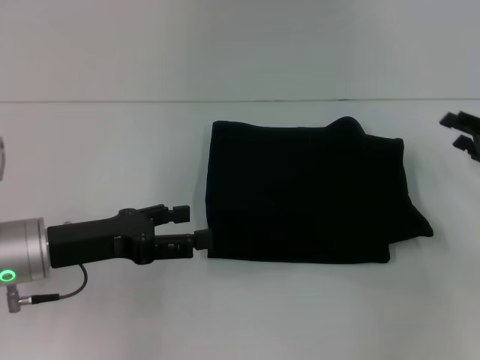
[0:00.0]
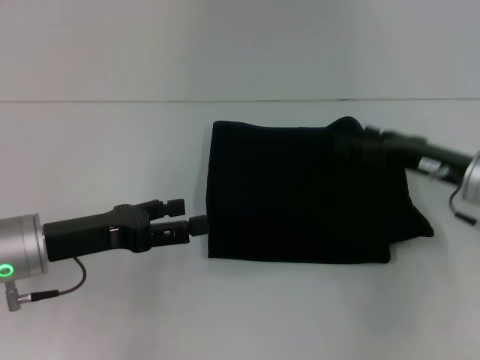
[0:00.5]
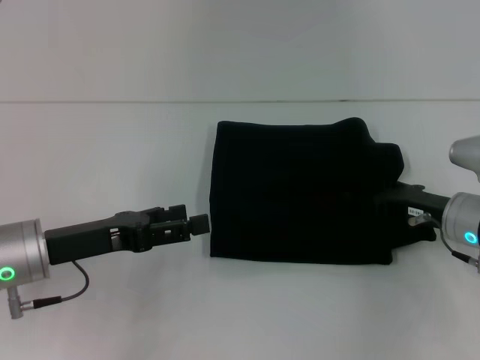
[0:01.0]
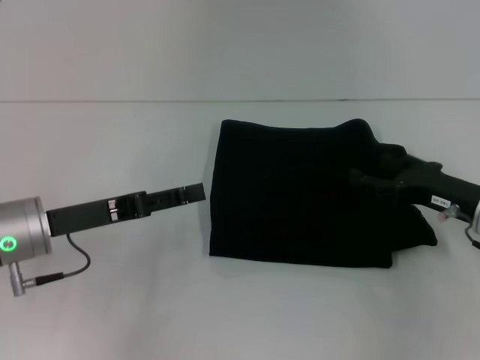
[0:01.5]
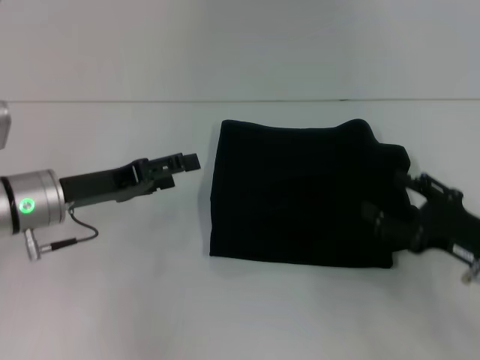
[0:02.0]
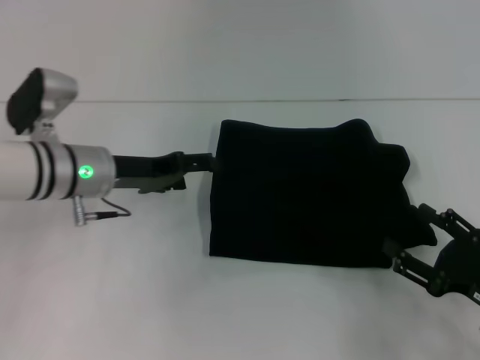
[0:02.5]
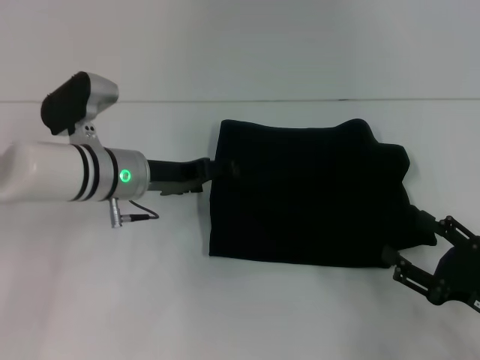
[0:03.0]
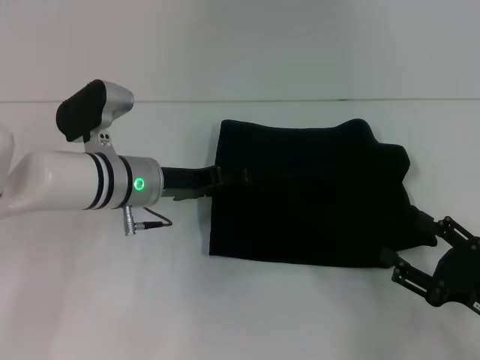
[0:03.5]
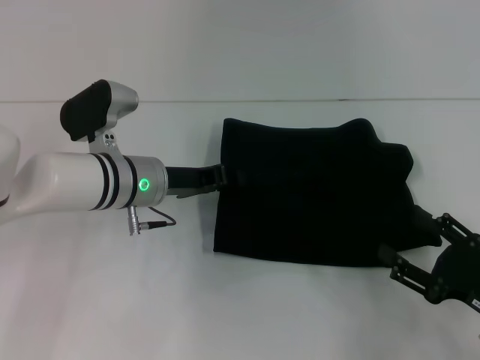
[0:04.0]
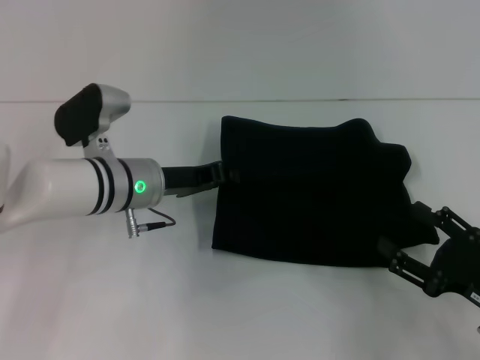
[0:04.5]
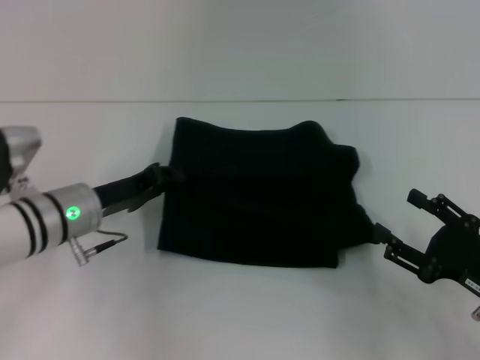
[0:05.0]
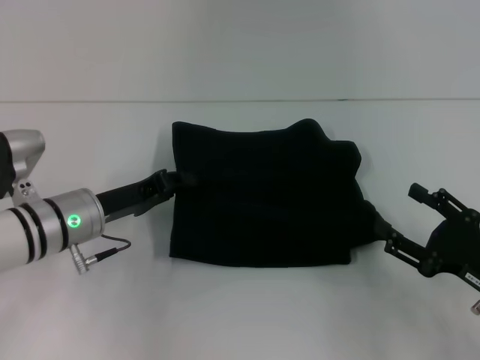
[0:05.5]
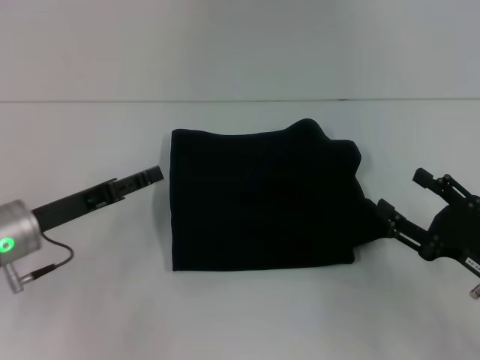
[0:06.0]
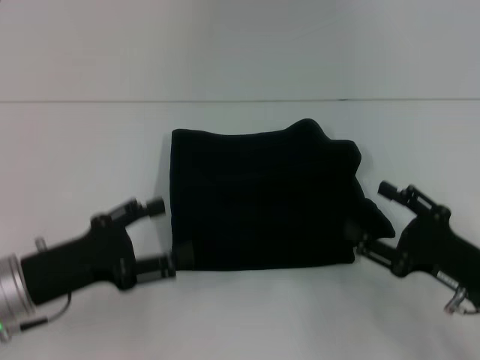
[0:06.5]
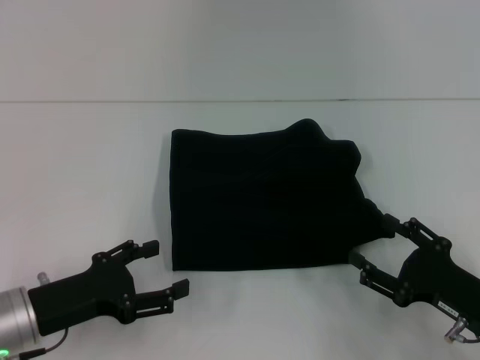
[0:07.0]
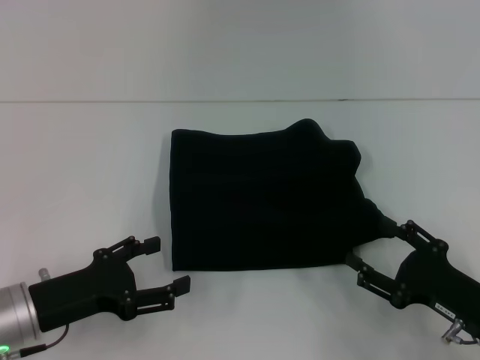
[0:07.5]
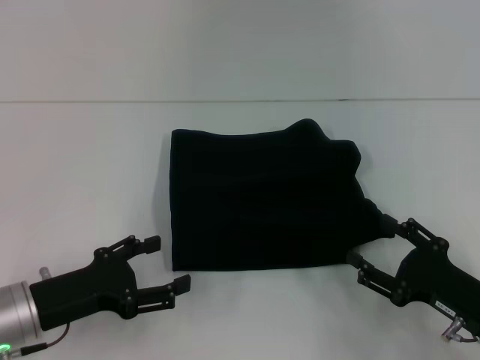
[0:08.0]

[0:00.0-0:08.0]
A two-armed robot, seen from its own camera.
0:00.0 to 0:02.0: The right gripper goes approximately 10 cm backward and to the left, and opens its fingers.
0:02.0 to 0:04.0: The left gripper is displaced to the right by approximately 10 cm, while the right gripper heads backward, covering some 5 cm.
0:04.0 to 0:06.0: The left gripper moves to the left and backward, approximately 15 cm, and closes and opens again.
0:06.0 to 0:08.0: The left gripper moves backward, some 5 cm, and opens.

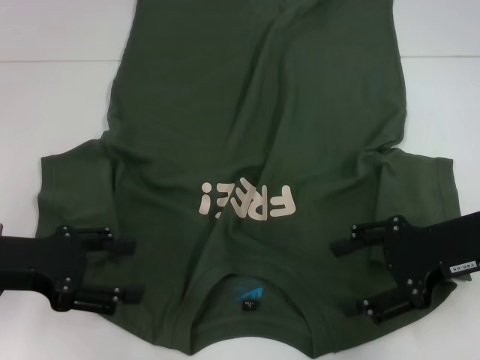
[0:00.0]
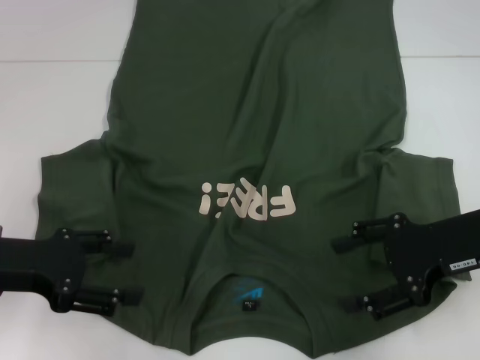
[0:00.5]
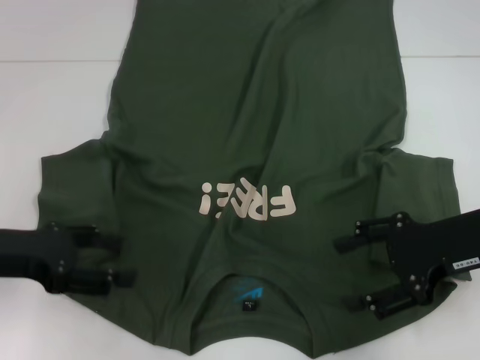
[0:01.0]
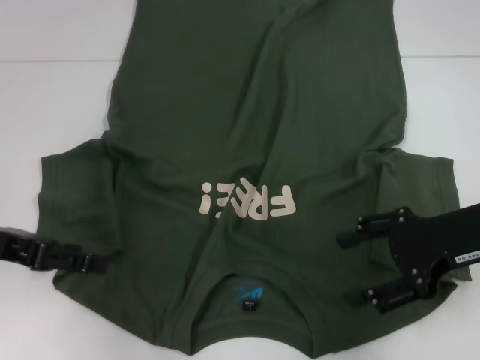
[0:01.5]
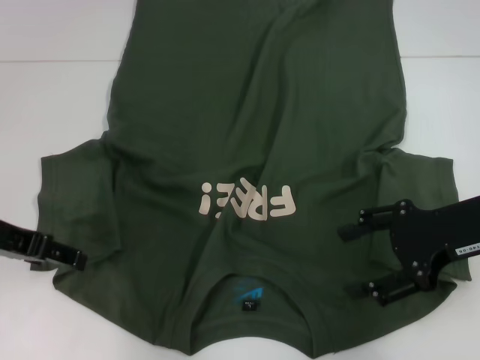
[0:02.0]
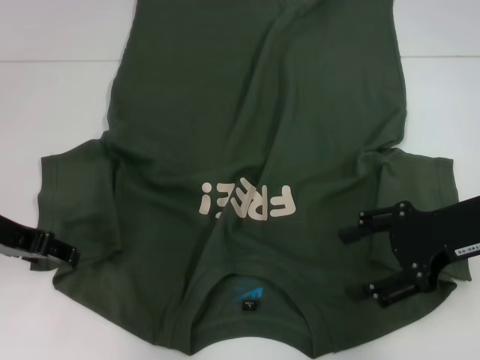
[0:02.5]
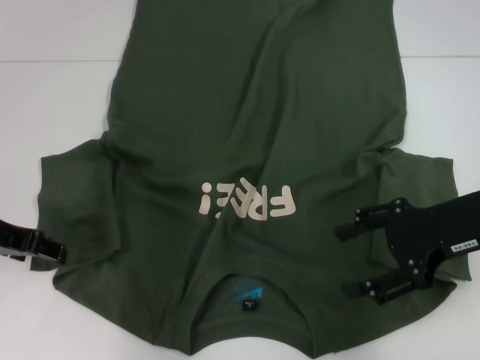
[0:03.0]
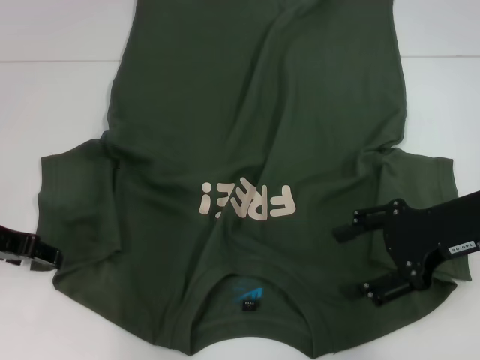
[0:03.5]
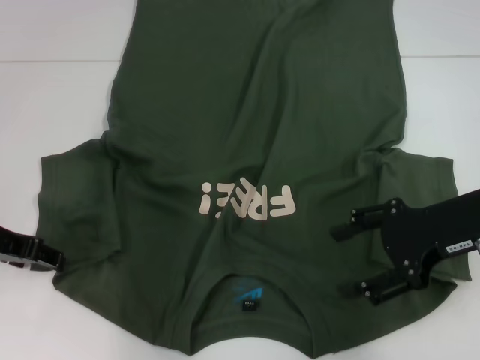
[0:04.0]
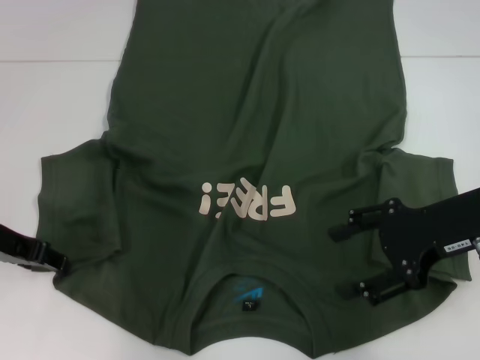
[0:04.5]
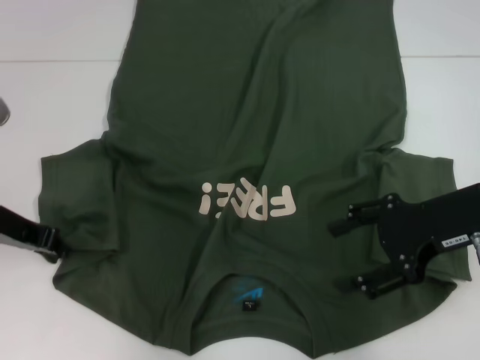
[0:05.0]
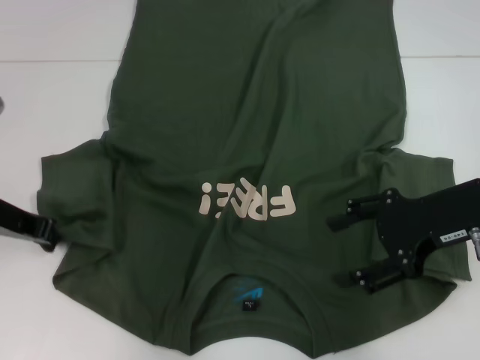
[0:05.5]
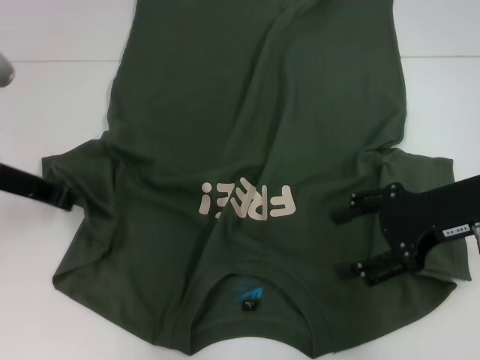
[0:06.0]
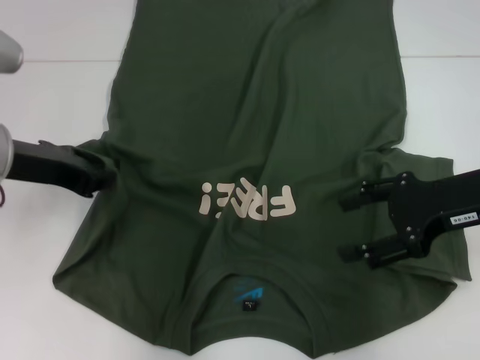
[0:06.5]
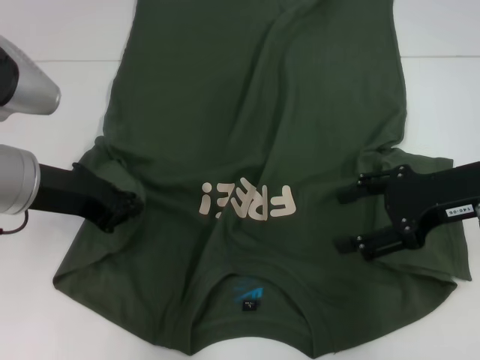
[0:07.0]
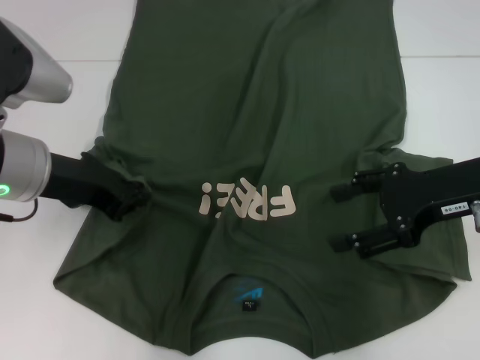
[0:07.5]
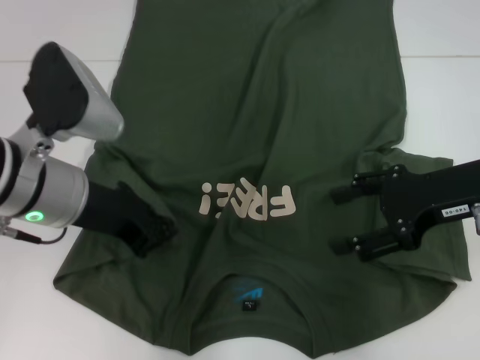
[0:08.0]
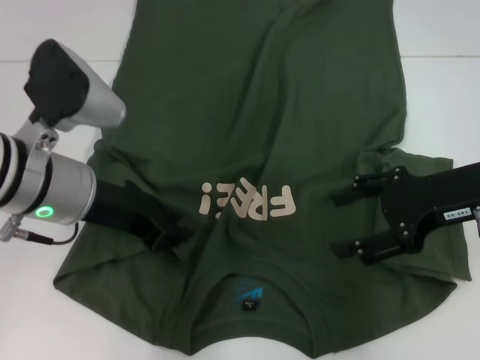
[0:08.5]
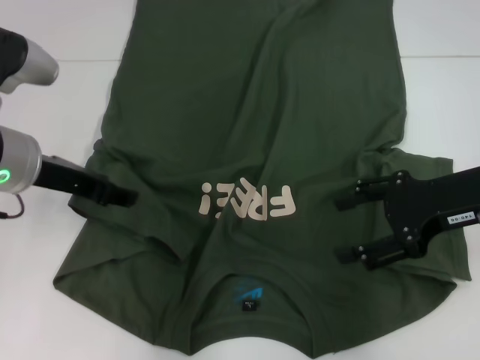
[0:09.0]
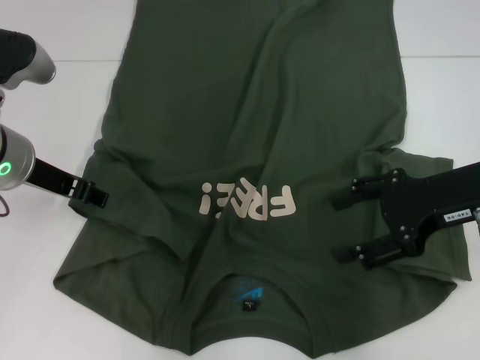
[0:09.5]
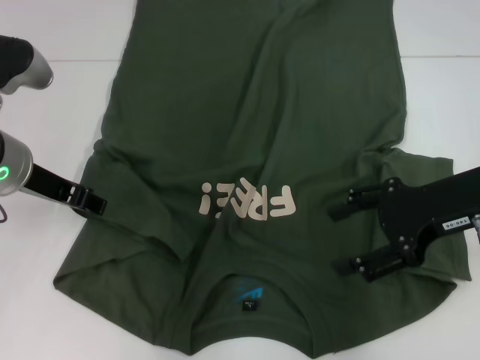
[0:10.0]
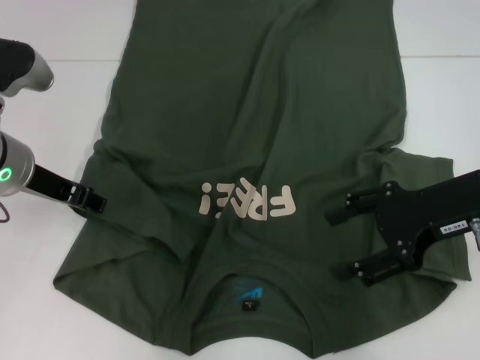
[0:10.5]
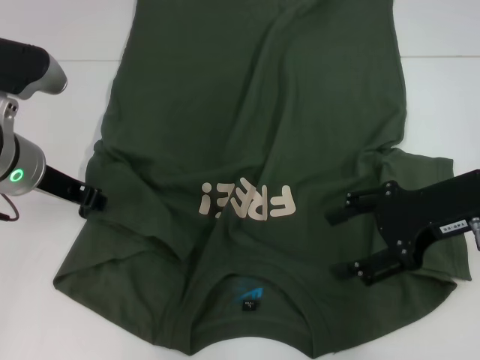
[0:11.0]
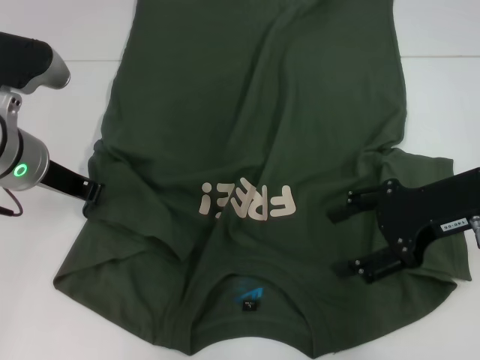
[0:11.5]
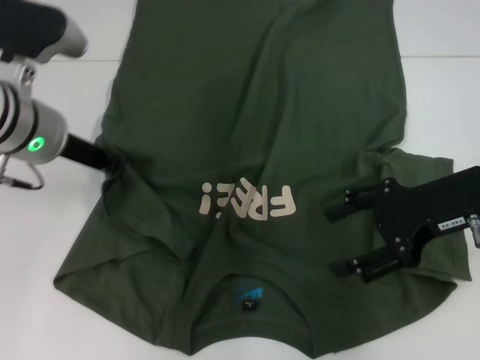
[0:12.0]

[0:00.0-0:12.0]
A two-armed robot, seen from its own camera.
0:00.0 to 0:02.0: The left gripper goes some 5 cm upward.
0:02.0 to 0:04.0: There are only small adjustments of the grippers.
0:04.0 to 0:06.0: The left gripper closes.
0:06.0 to 0:08.0: The left gripper shifts approximately 5 cm to the right.
0:08.0 to 0:10.0: The left gripper changes place by approximately 5 cm, and opens up.
0:10.0 to 0:12.0: The left gripper closes up.

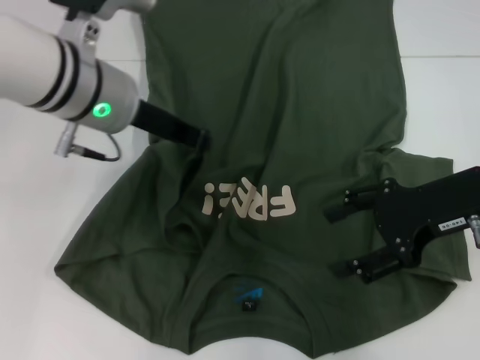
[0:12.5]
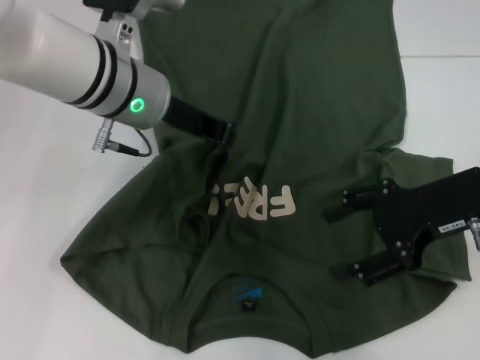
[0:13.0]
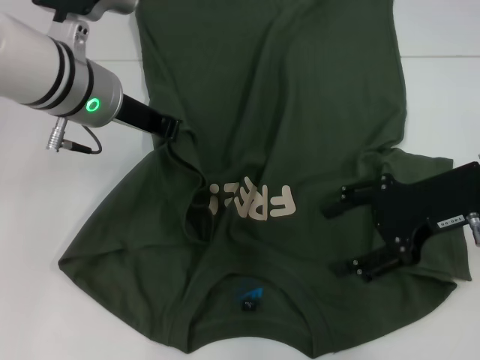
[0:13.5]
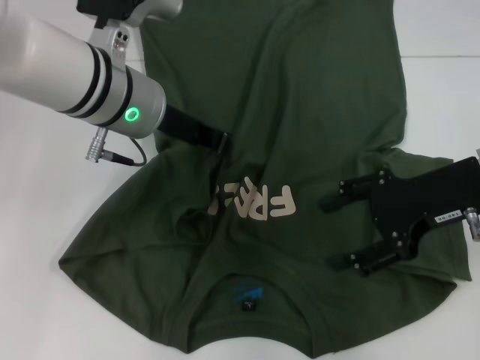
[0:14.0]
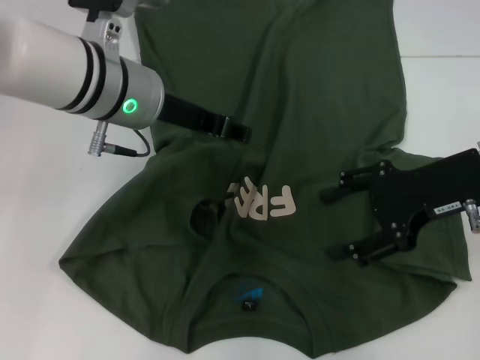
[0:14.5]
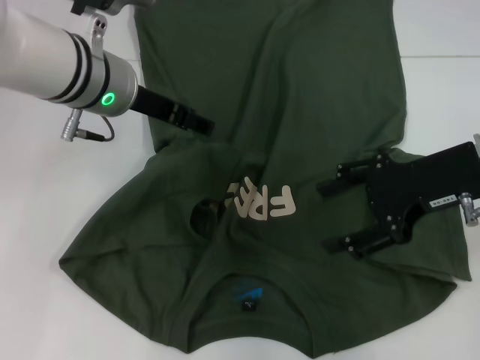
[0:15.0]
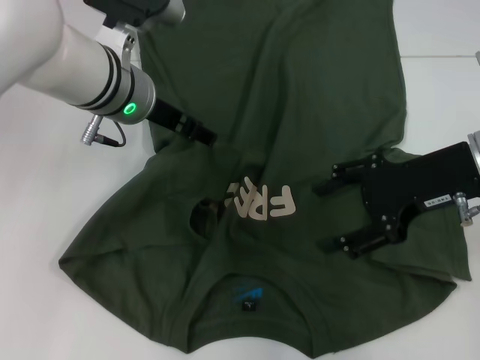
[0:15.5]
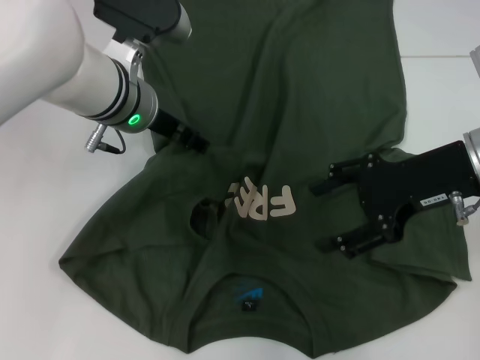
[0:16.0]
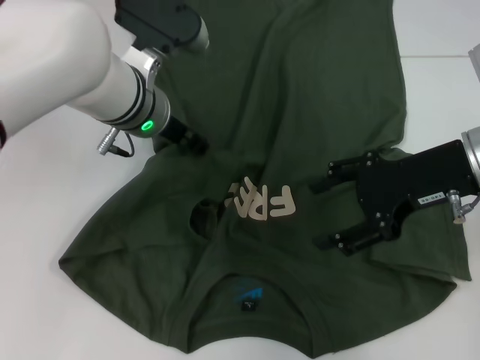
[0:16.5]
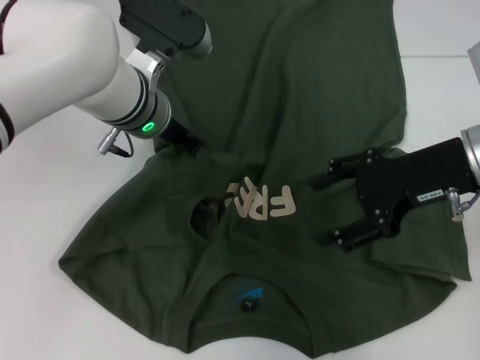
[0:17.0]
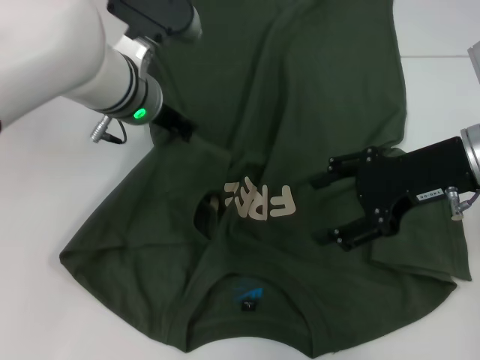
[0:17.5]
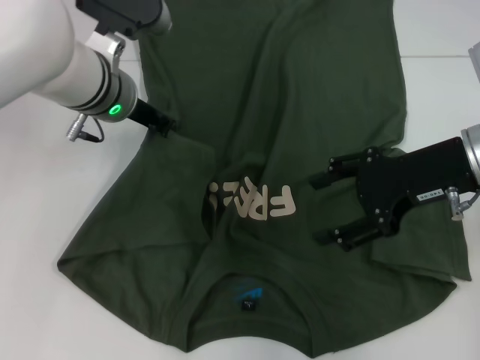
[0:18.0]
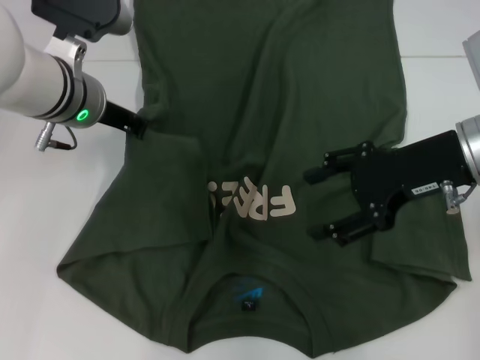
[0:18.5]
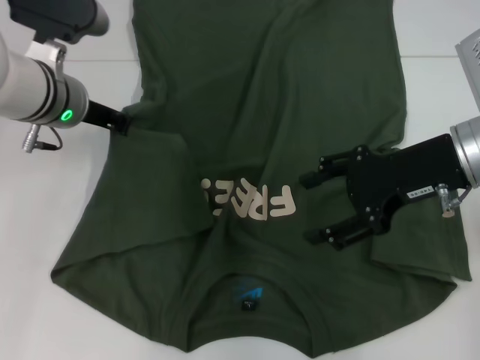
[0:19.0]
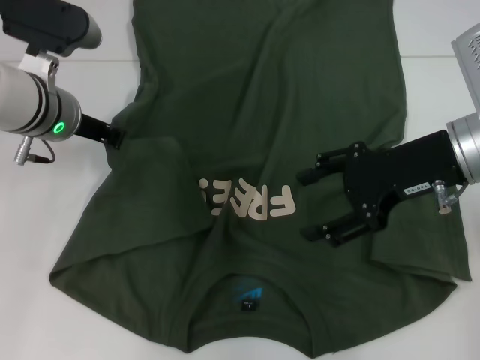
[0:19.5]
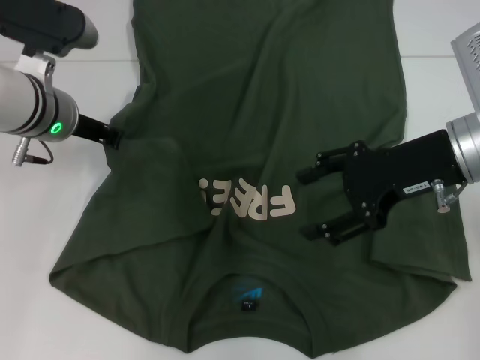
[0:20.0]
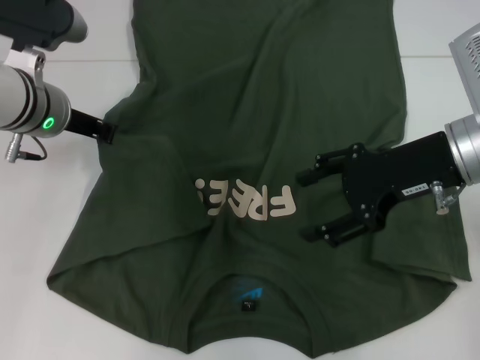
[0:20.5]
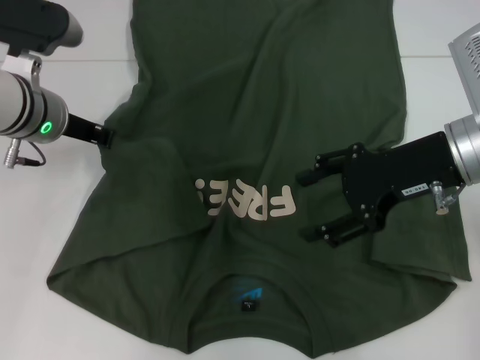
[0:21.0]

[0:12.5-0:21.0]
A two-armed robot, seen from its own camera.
Step, 0:12.5 to 0:15.0: Fold the bottom left sleeve with your left hand.
0:12.5 to 0:14.5: The left gripper opens.
0:14.5 to 0:16.5: The left gripper shifts by about 5 cm.
0:16.5 to 0:19.0: The left gripper moves to the left, roughly 10 cm, and closes up.
0:19.0 to 0:21.0: The grippers move only a little.
